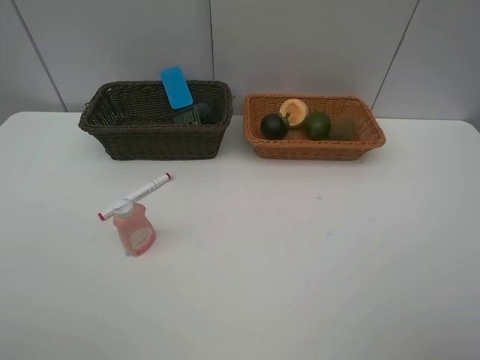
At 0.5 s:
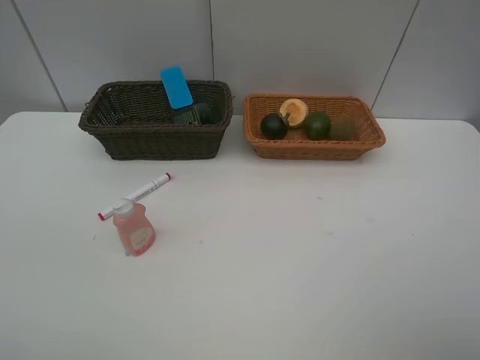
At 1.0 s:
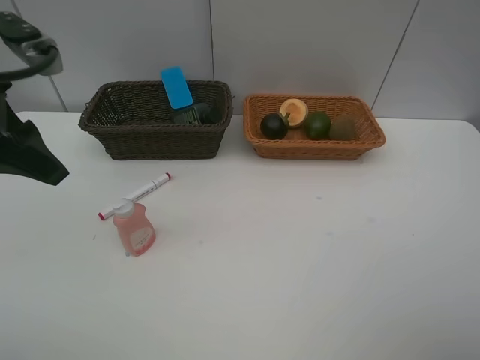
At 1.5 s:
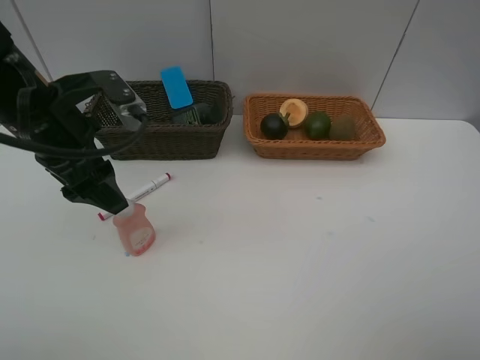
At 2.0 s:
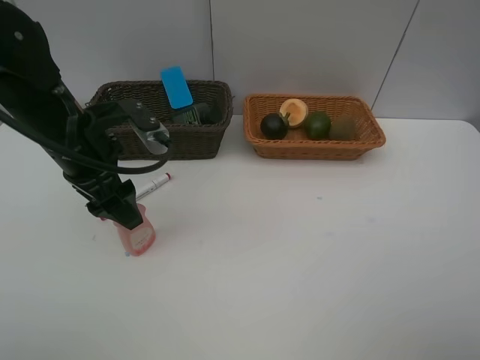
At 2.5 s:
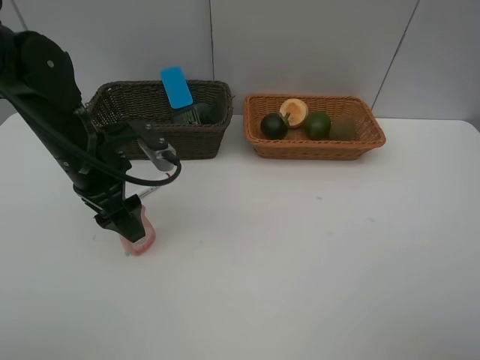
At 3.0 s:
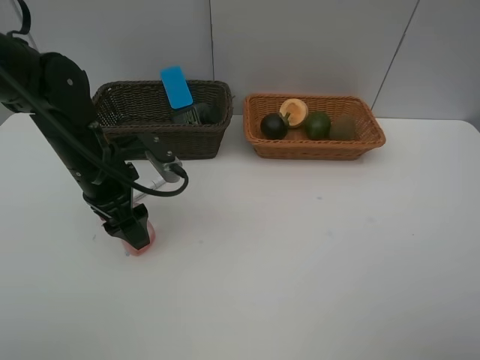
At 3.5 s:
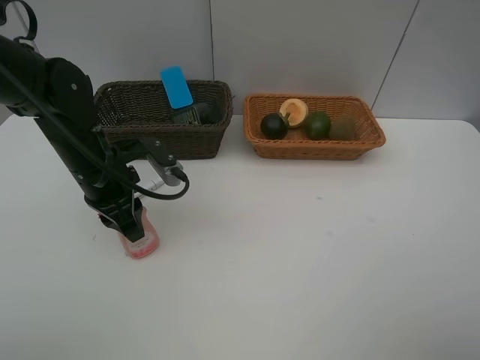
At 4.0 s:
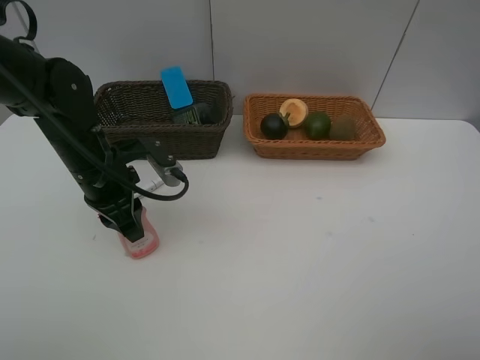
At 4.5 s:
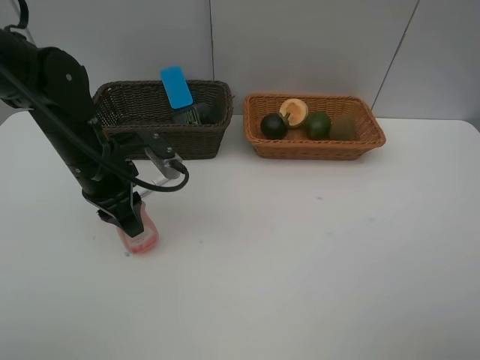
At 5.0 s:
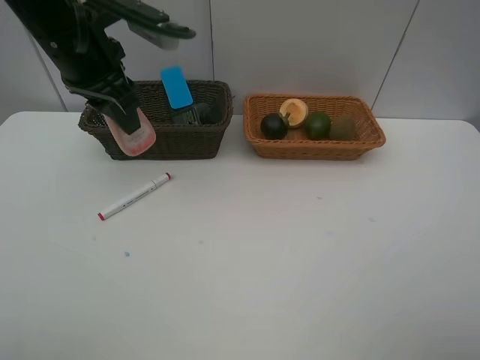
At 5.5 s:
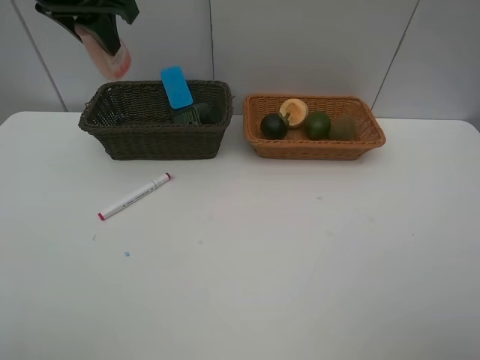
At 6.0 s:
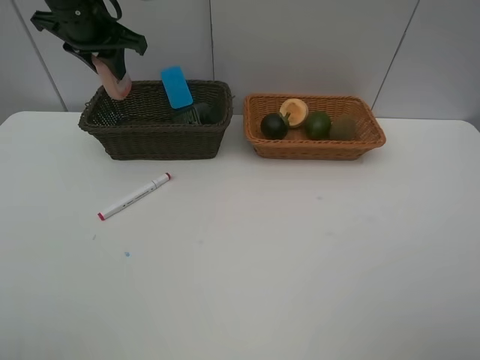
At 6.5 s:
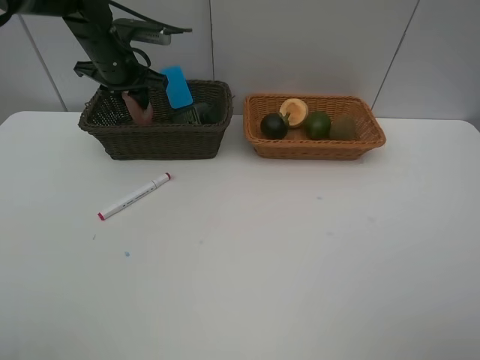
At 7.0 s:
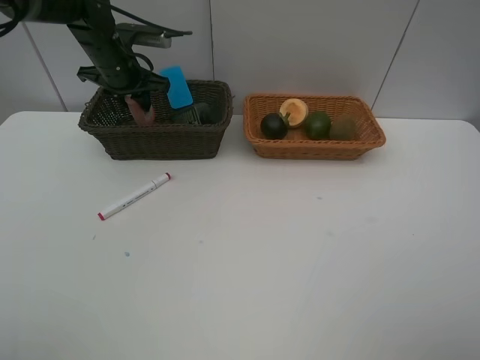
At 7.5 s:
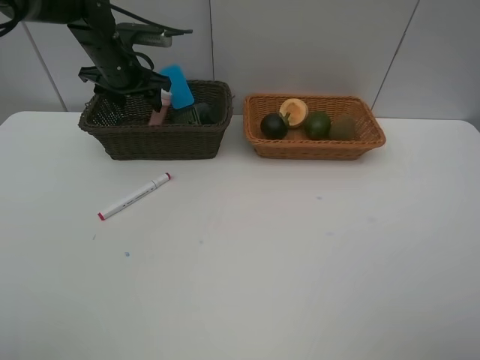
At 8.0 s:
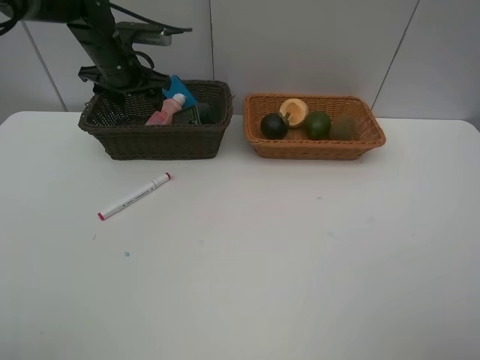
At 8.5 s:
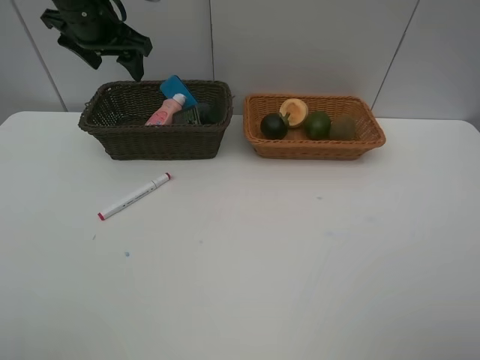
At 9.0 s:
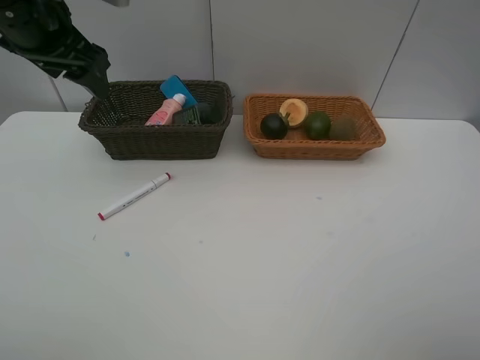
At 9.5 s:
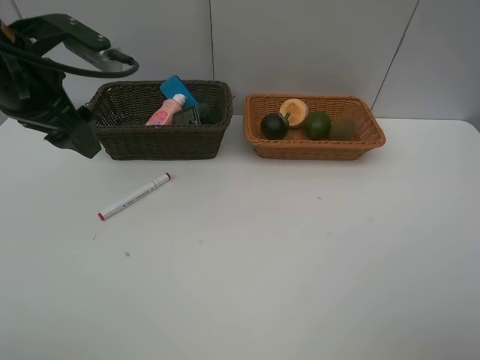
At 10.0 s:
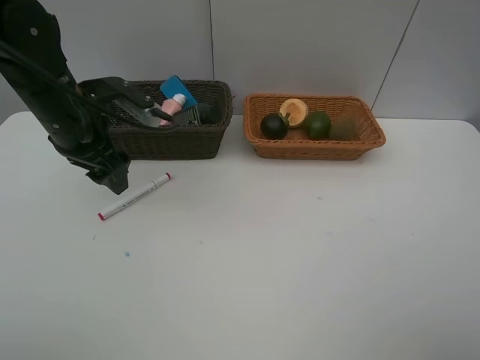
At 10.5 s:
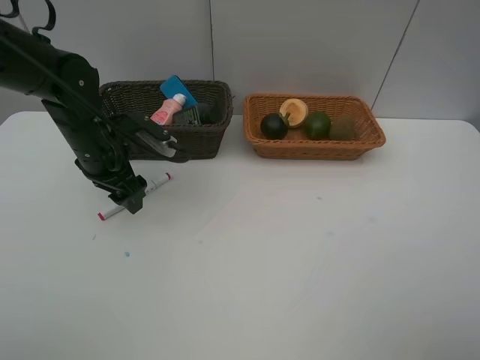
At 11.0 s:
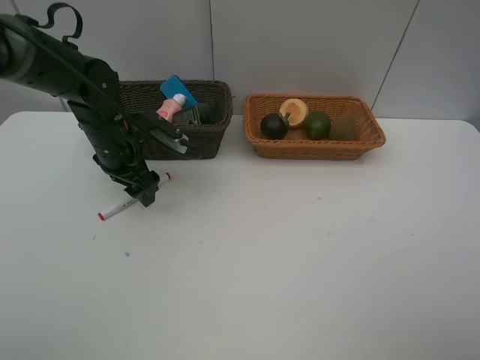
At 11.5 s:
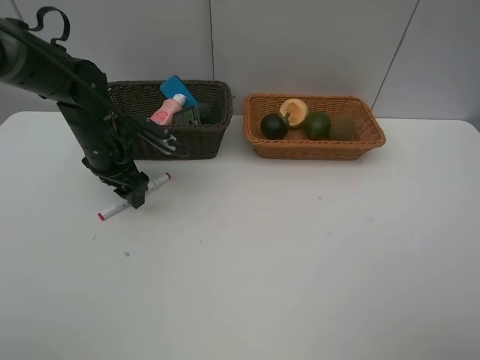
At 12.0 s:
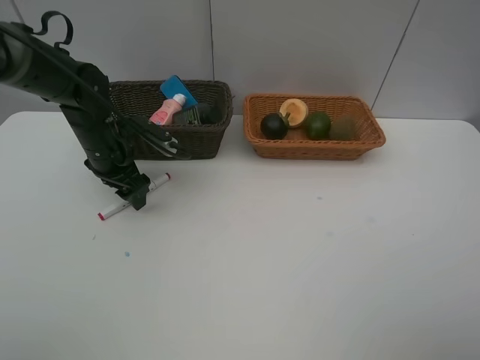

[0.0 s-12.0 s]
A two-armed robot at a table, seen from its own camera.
Task of the whole recording: Place multiple objects separately in different baskets.
Step, 0.0 to 4.5 s: Pick up the laundry detergent with left gripper.
Step, 5.0 to 8.0 s: Place the laundry detergent in the dark basket with left gripper.
0.0 to 2.0 s: The left gripper shifts some 25 cm forward, downward and to the right.
2.0 to 4.0 s: The left gripper heads downward, covering some 5 cm, and closes its fingers.
4.0 to 6.0 s: The left gripper travels forward and upward by some 20 cm.
6.0 to 8.0 s: The left gripper travels downward by some 10 cm, and opens its fingers.
8.0 to 10.0 s: The left gripper heads backward, covering approximately 15 cm.
10.0 to 12.0 s: The left gripper shifts approximately 10 cm downward and forward.

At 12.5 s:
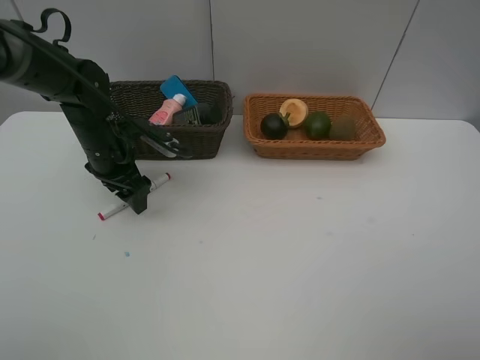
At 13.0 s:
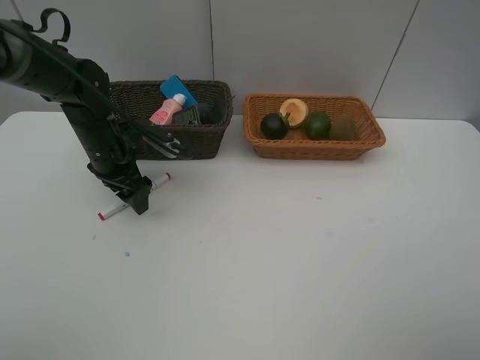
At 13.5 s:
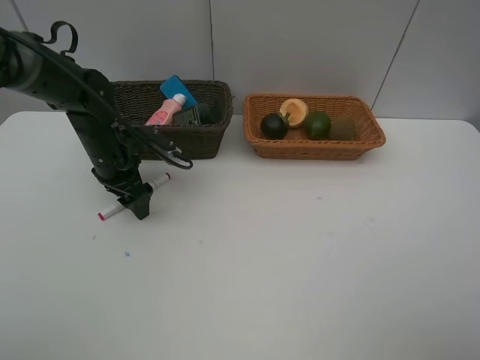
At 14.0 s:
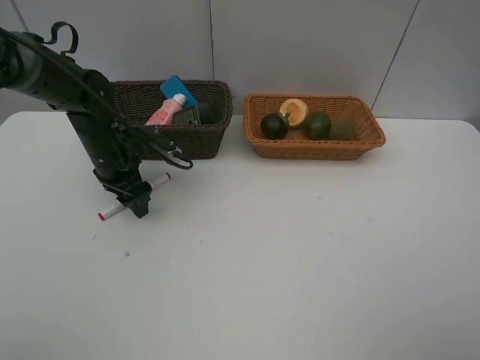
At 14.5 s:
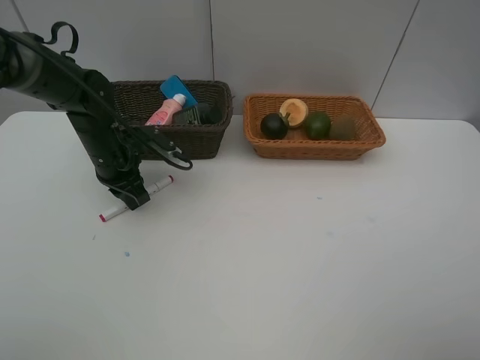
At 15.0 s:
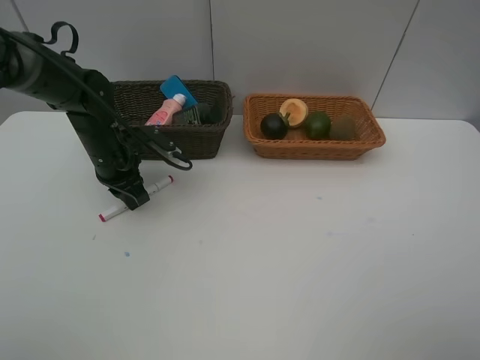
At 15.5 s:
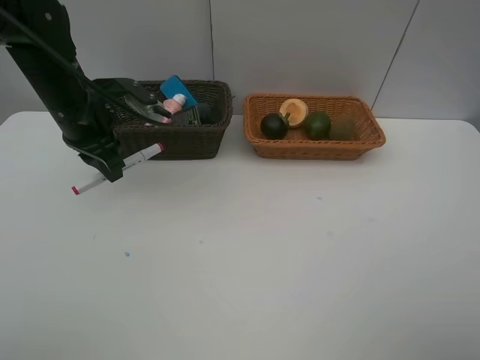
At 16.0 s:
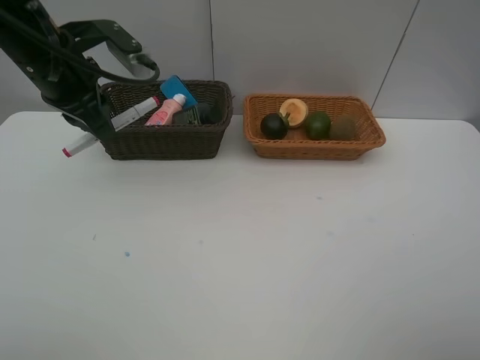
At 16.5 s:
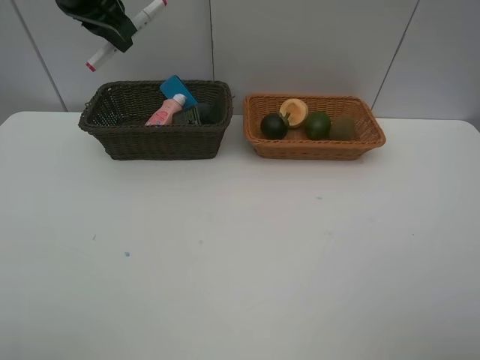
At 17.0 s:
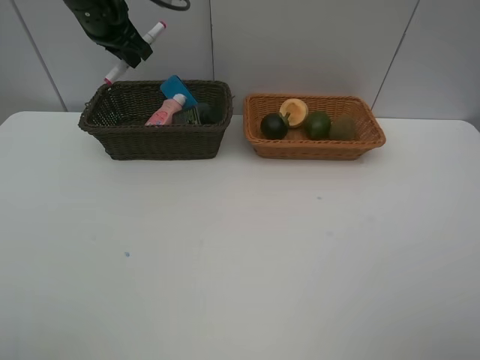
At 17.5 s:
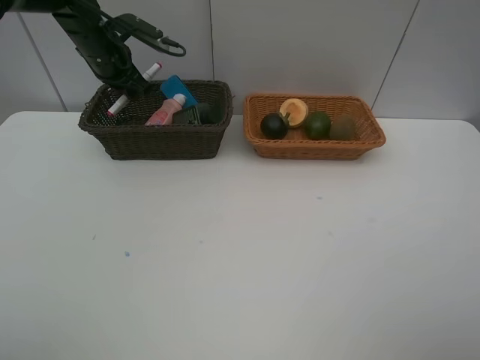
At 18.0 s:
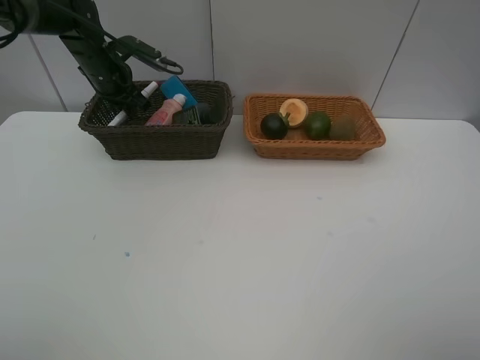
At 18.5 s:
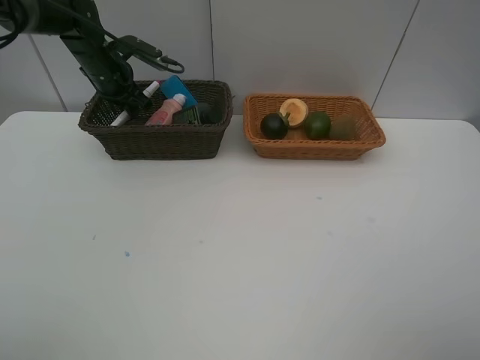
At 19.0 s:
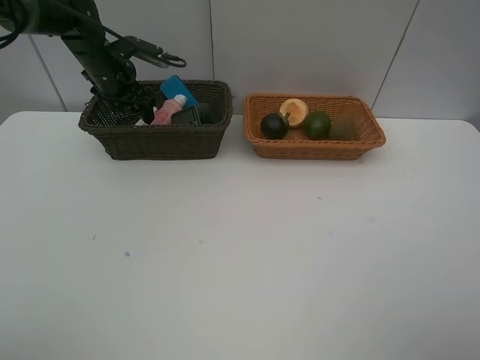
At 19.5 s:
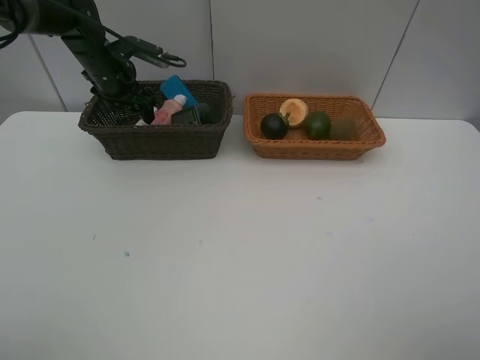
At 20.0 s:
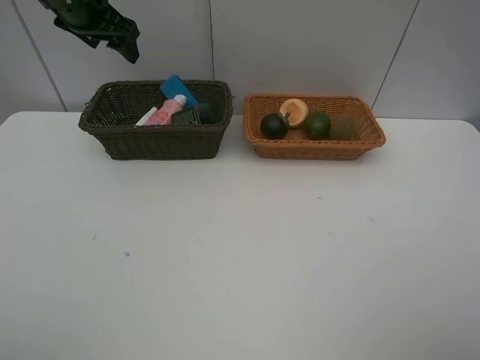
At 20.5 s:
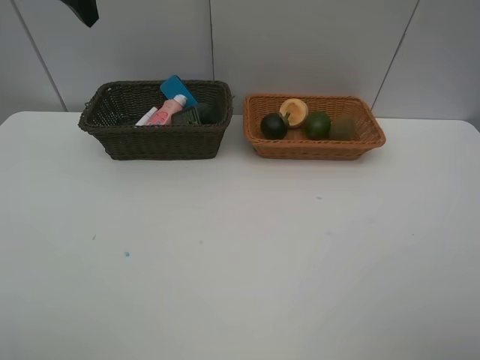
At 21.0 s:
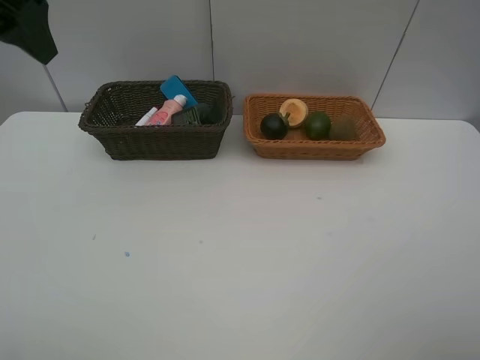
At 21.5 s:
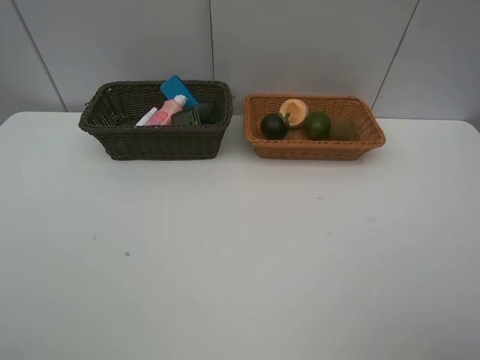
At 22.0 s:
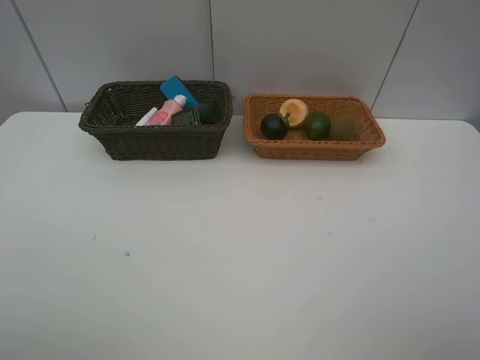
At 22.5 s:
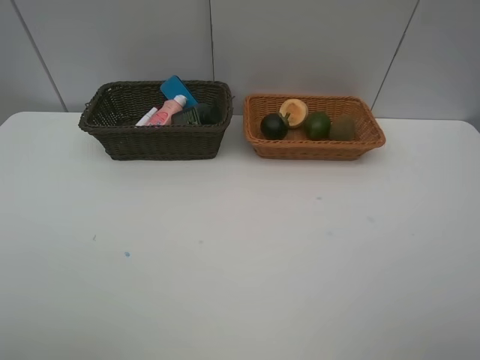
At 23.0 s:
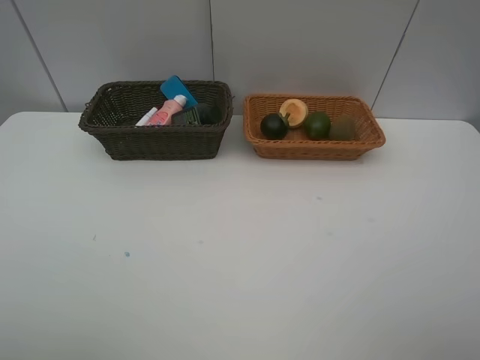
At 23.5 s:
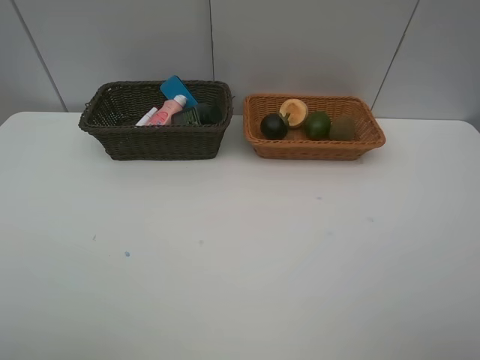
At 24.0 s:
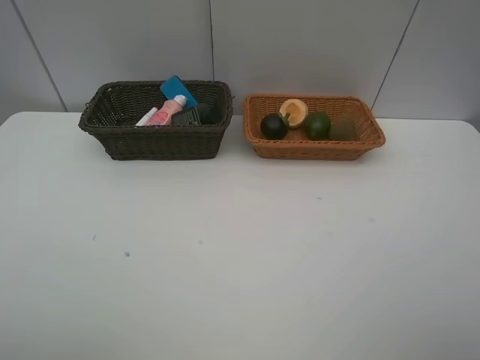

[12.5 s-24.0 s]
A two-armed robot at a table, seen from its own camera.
Task of the whole recording: Place multiple objects separately in different baskets.
Step, 12.5 to 15.0 s: Pick up the red marker with left gripper.
Step, 15.5 to 19.5 s: Place the red marker in the dark basket with left gripper.
12.5 to 14.5 s: The left gripper closes up.
14.5 to 16.5 s: The left gripper is displaced upward by roughly 25 cm.
16.5 to 18.5 s: The left gripper is displaced downward and forward by approximately 20 cm.
18.5 to 20.0 s: The left gripper heads upward, covering approximately 15 cm, and opens up.
20.0 to 22.0 s: The left gripper is displaced backward by about 40 cm.

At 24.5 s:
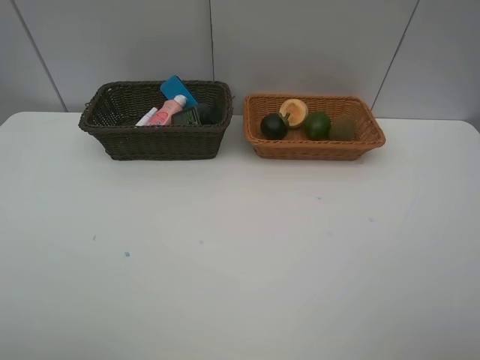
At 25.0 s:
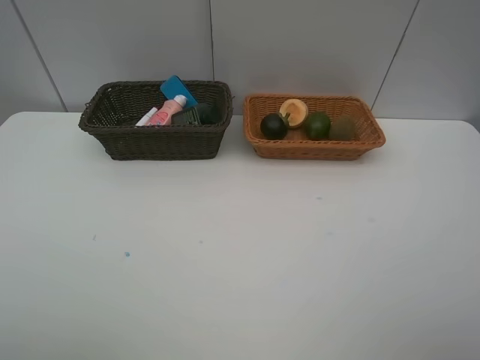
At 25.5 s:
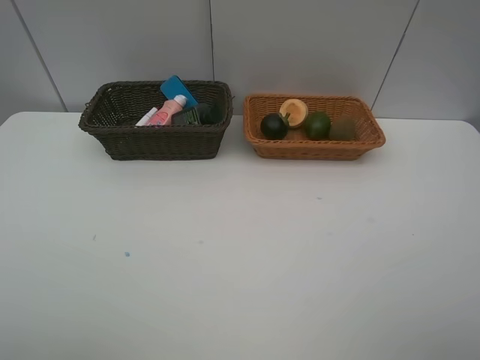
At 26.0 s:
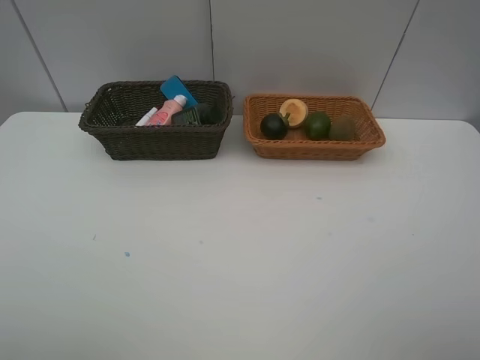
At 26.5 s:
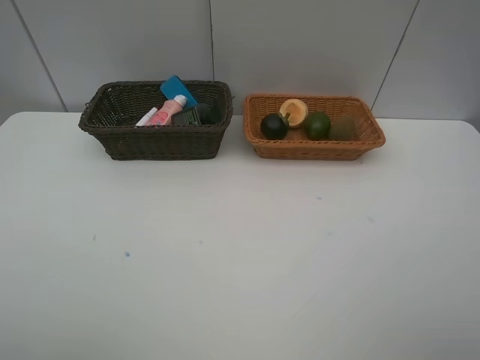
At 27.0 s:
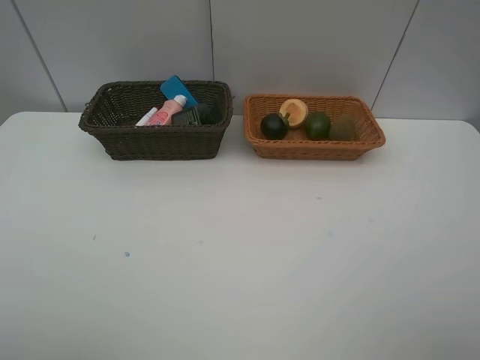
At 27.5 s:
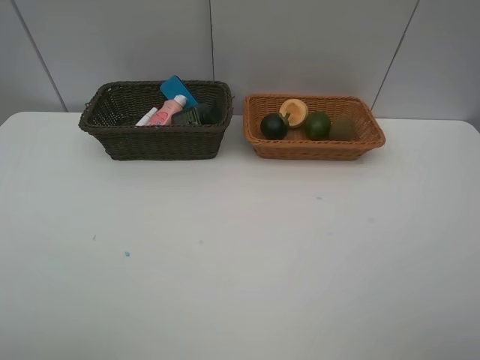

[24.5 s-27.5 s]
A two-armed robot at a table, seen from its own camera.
Task of the whole recording: Place multiple objects separately in different baskets.
24.5 to 27.5 s: The two grippers keep their place.
